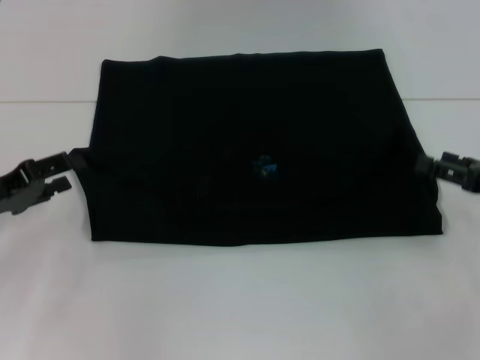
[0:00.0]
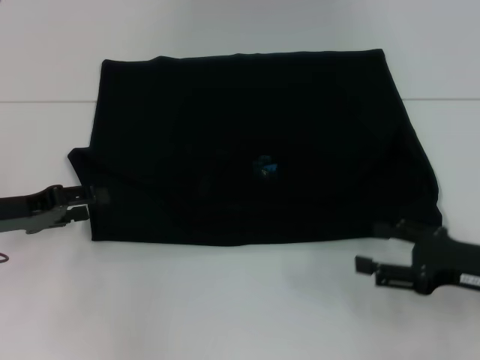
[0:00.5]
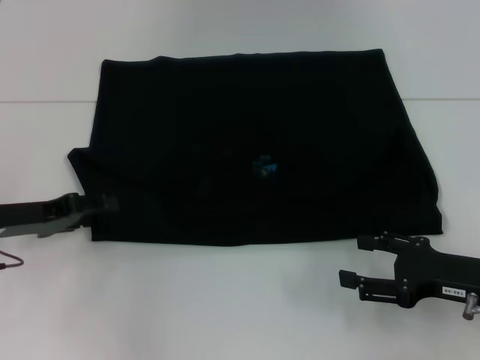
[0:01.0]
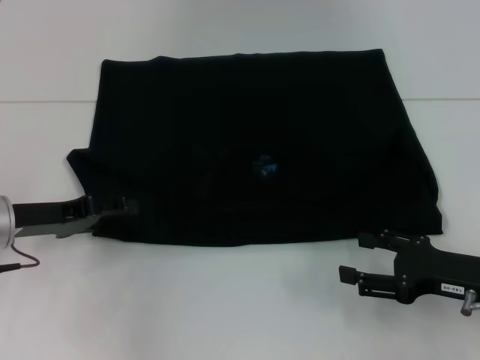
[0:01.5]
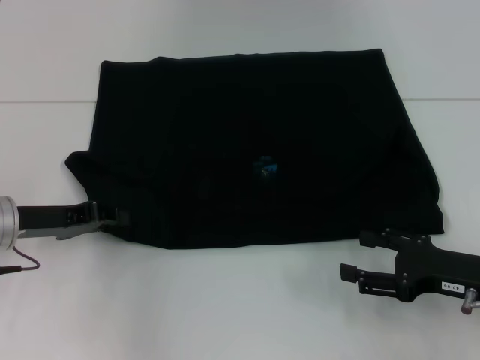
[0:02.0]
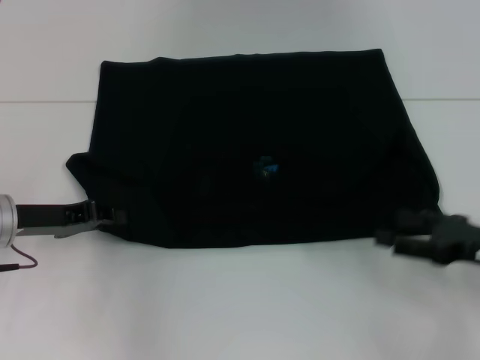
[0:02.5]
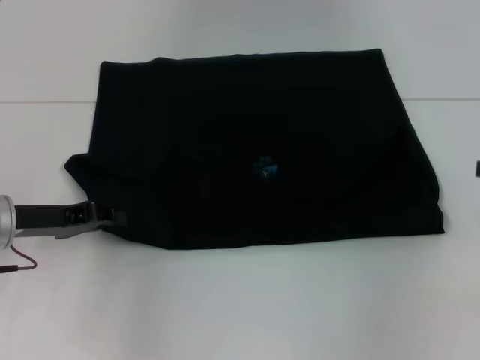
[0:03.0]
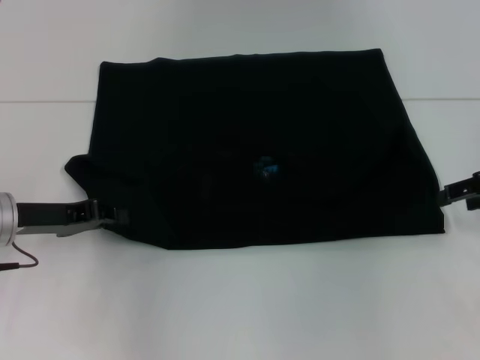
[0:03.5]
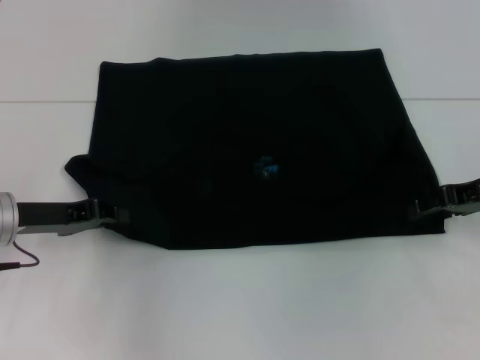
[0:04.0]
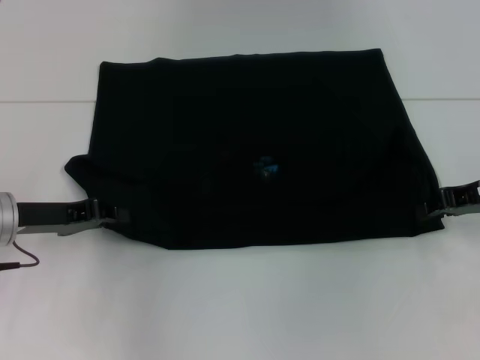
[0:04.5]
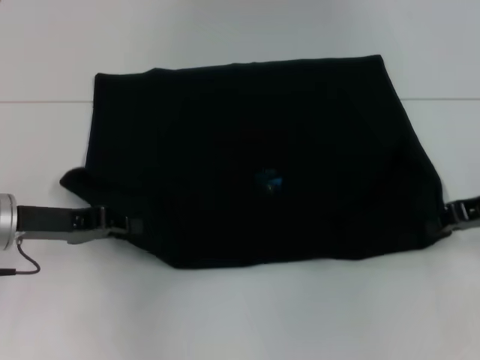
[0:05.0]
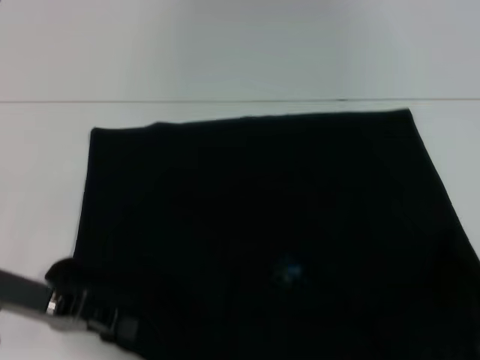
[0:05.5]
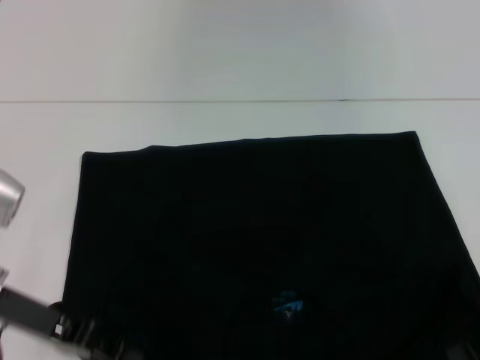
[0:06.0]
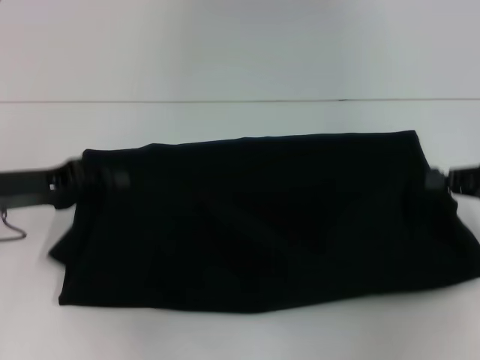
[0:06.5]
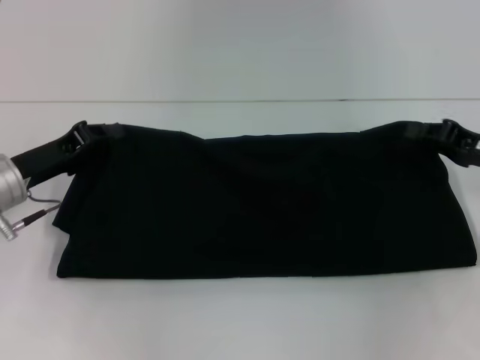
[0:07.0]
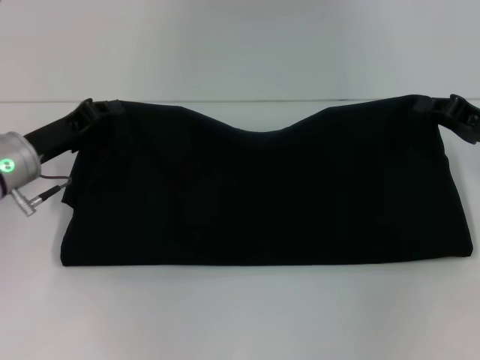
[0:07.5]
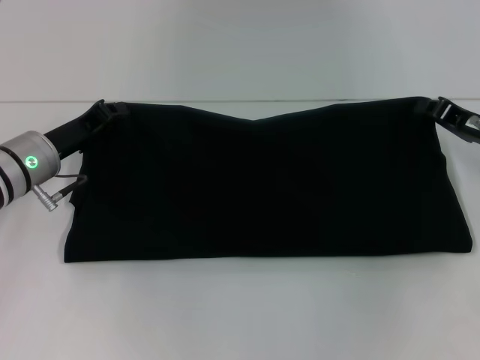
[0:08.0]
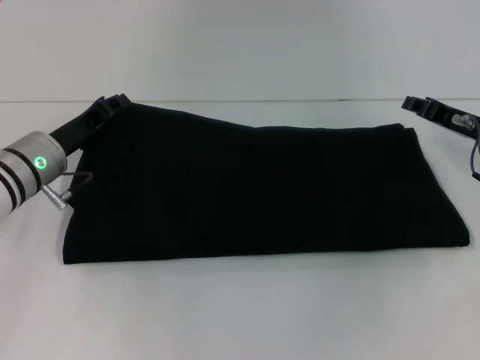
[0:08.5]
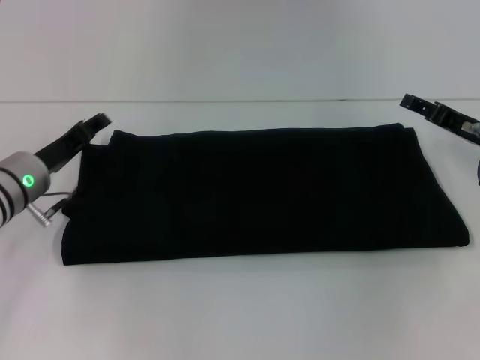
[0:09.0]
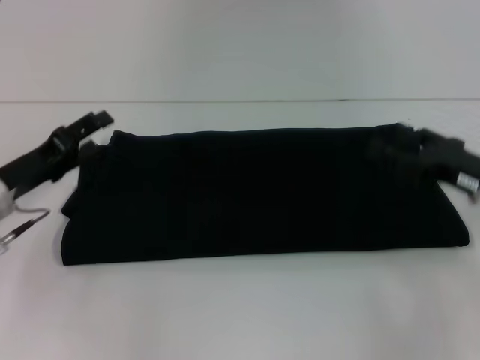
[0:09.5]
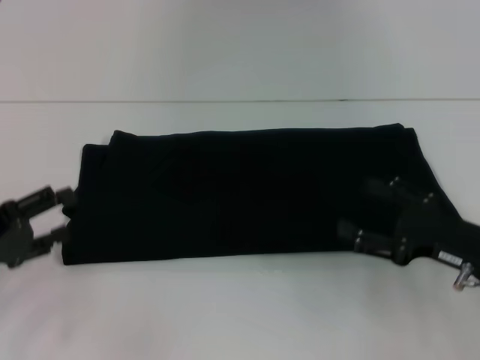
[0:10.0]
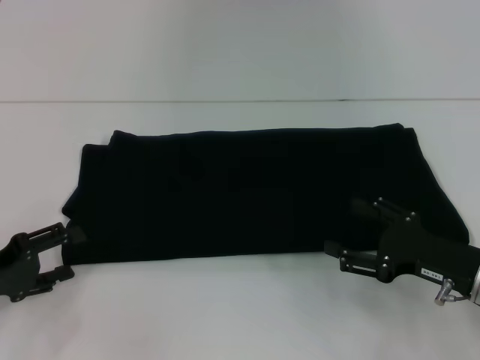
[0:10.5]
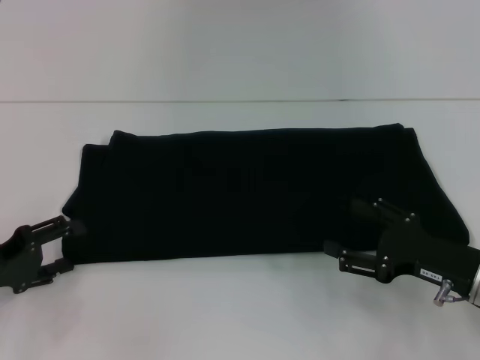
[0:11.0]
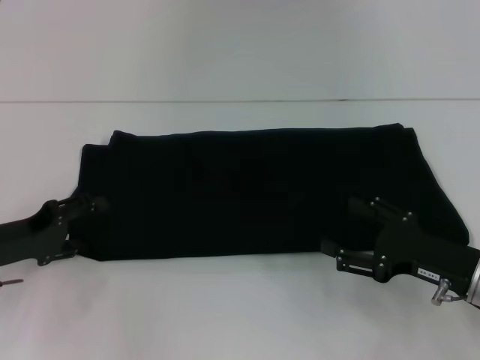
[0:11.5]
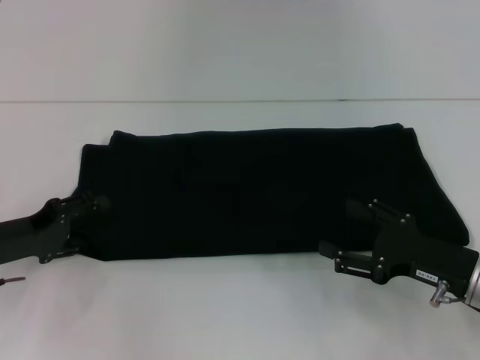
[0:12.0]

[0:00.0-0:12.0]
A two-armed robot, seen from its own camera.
Step, 0:00.0 to 0:05.5: Pull the clothes with your left hand.
Step, 0:00.0 to 0:05.5: Pull the clothes with your right hand.
Step, 0:06.0 to 0:08.5: Fold the clothes with your right hand.
0:00.0 to 0:02.0: The left gripper ends up some 5 cm from where it was, and closes up. Meanwhile the right gripper goes approximately 5 cm to the left.
0:02.0 to 0:04.0: The right gripper heads forward and upward, covering roughly 15 cm.
0:04.0 to 0:06.0: The right gripper moves backward, some 10 cm, and closes up; the left gripper goes about 5 cm backward.
0:06.0 to 0:08.0: Both grippers travel together forward, approximately 10 cm.
0:08.0 to 0:10.0: The right gripper moves backward, roughly 10 cm, and opens its fingers; the left gripper is displaced backward and to the left by approximately 15 cm, and opens.
0:10.0 to 0:12.0: The left gripper moves about 5 cm.

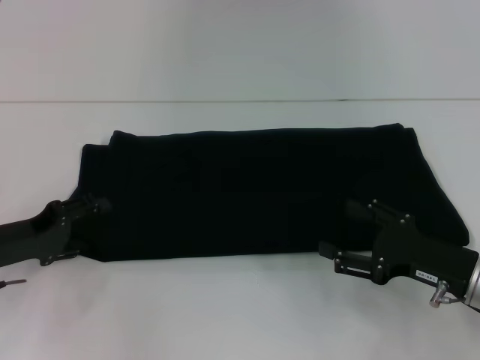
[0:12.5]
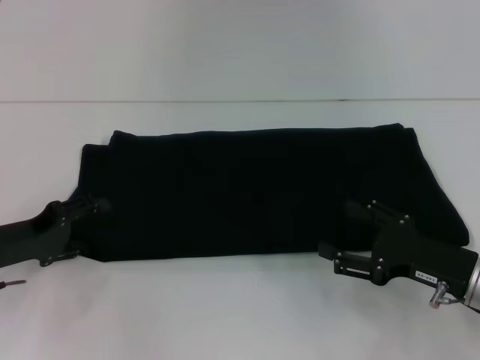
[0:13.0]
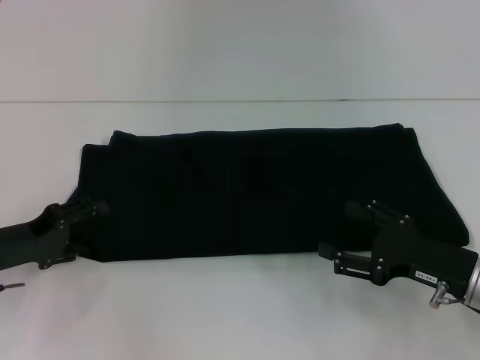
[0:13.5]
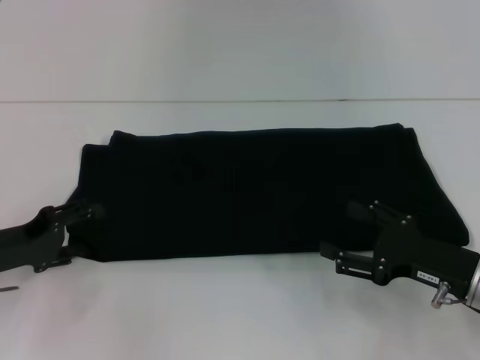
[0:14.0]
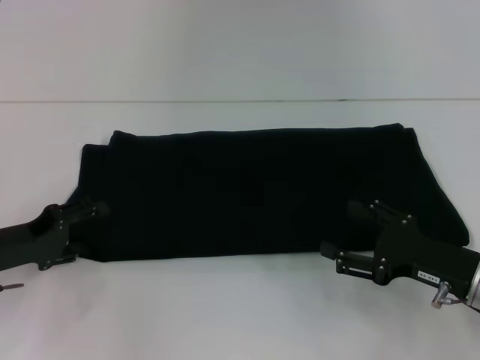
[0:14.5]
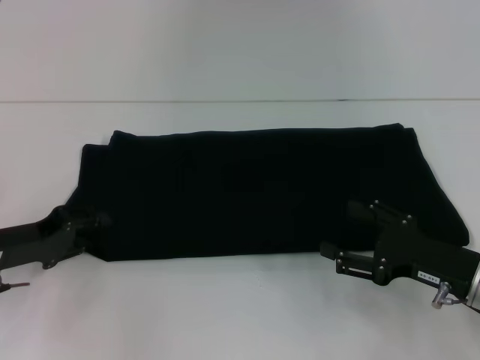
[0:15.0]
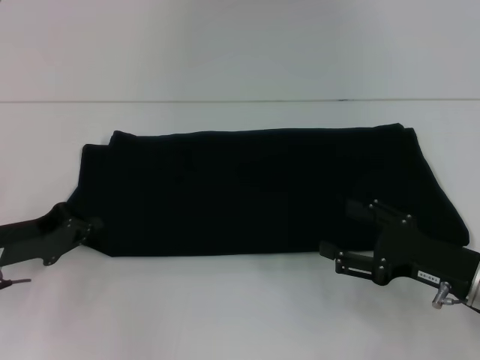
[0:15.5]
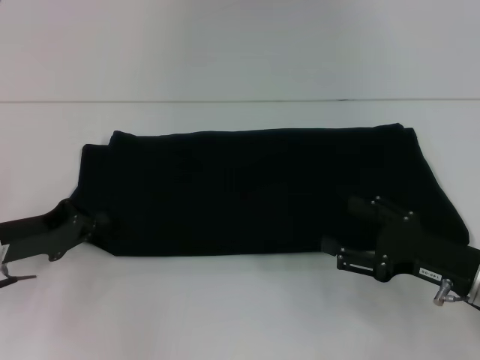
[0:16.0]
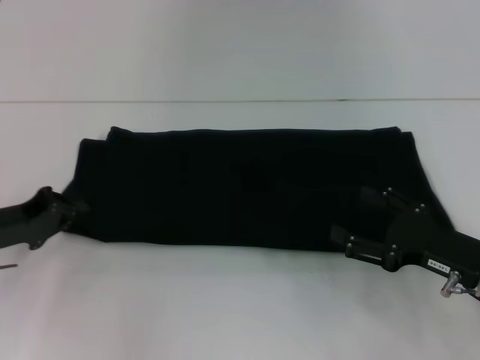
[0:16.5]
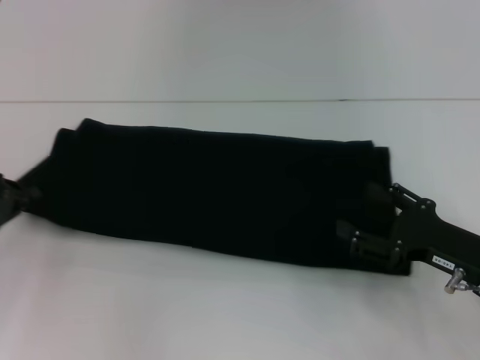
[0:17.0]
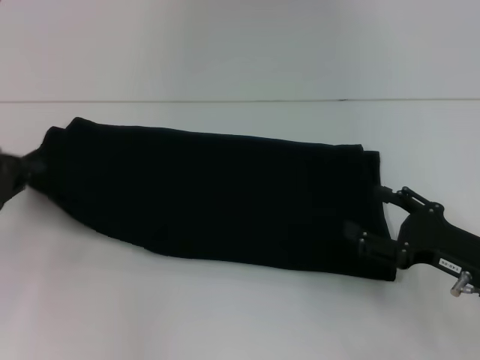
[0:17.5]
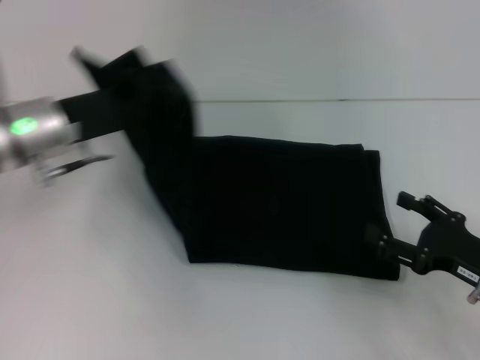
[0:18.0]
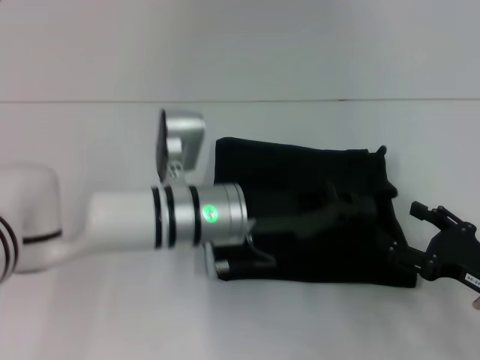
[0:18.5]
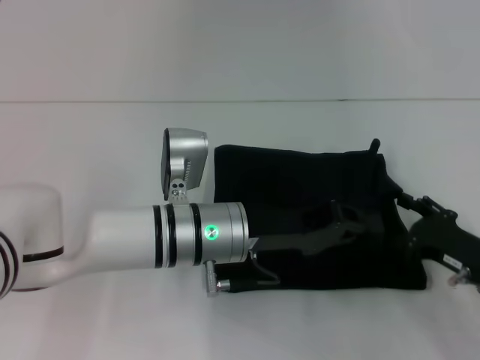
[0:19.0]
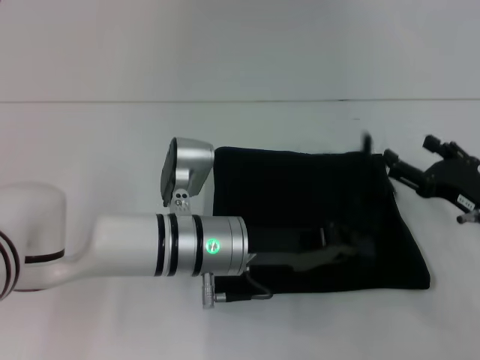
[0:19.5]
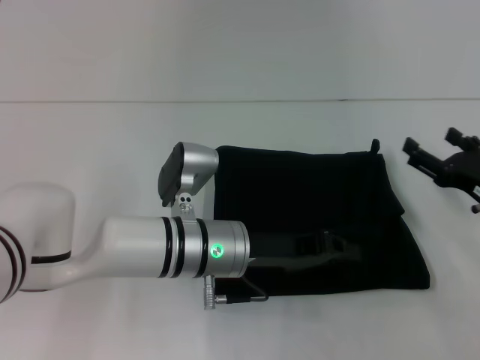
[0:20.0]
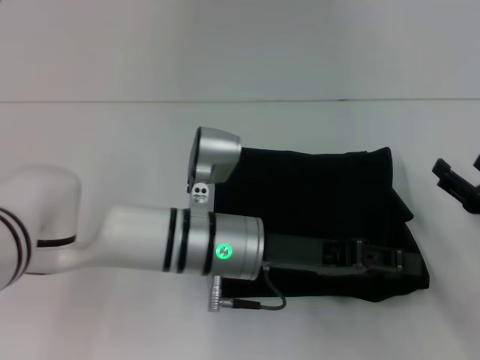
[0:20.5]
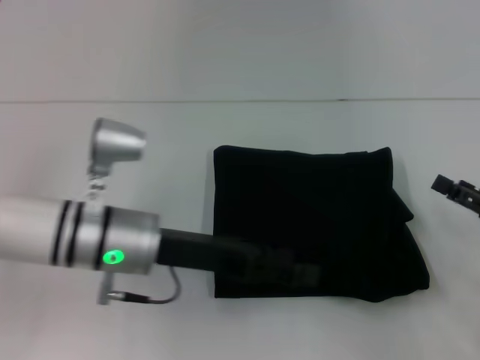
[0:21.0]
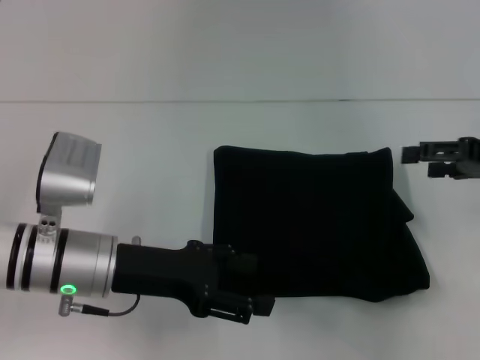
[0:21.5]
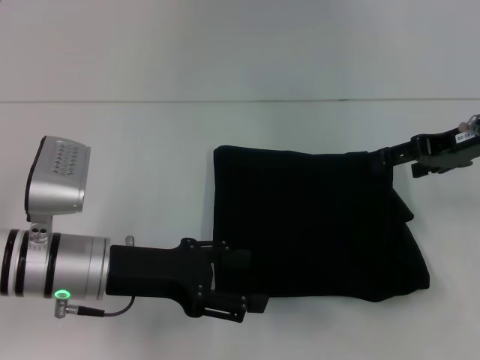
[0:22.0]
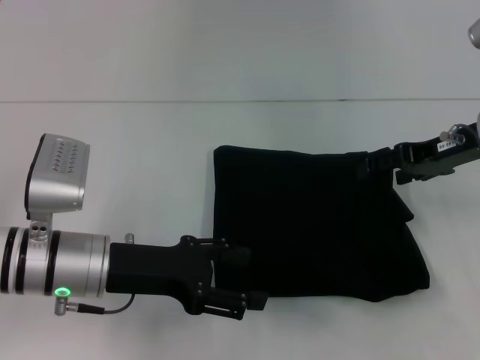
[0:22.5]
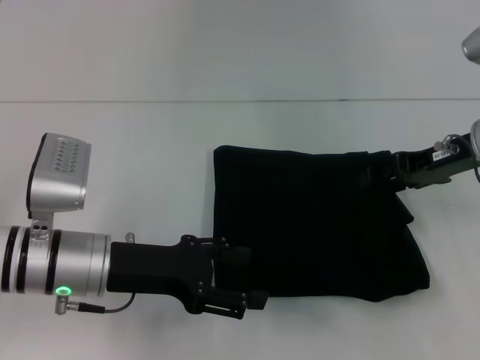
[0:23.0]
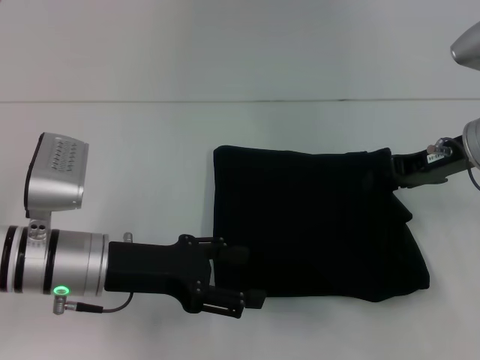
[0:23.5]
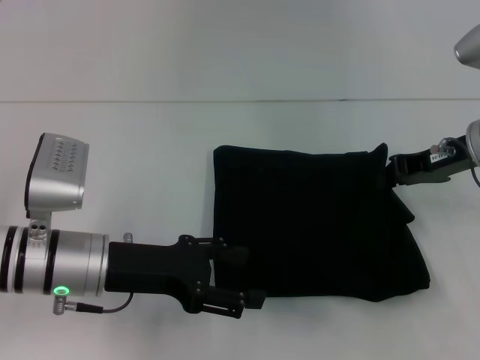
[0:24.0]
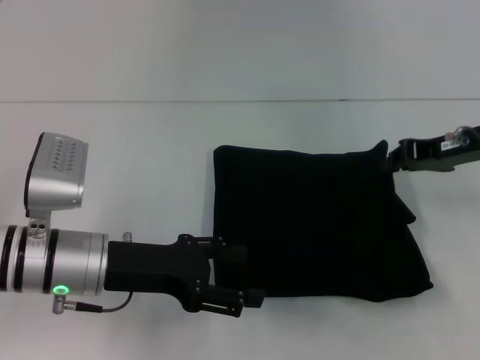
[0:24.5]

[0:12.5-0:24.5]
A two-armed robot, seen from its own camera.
Step, 0:12.5 to 0:20.5: Fold the clothes with your left hand.
0:12.5 to 0:14.5: Neither gripper changes place.
0:14.5 to 0:16.5: The left gripper closes.
0:16.5 to 0:18.5: The left gripper goes about 25 cm to the right.
0:20.5 to 0:22.5: The left gripper moves to the left, approximately 15 cm, and opens up, while the right gripper moves upward, forward and to the left, roughly 20 cm.
0:22.5 to 0:24.5: The right gripper closes up.

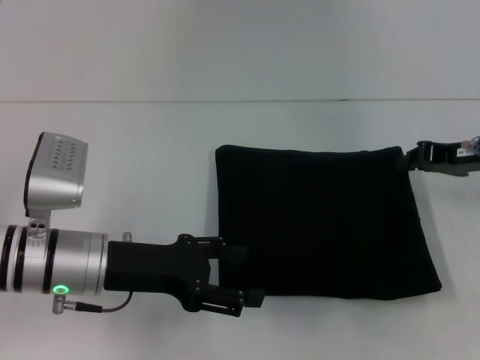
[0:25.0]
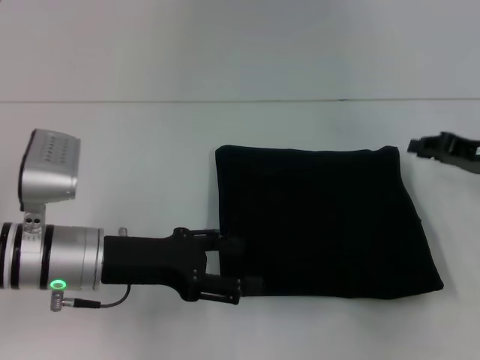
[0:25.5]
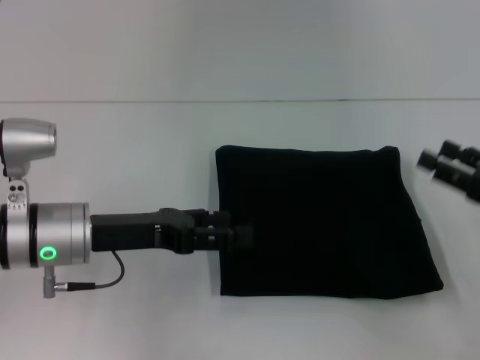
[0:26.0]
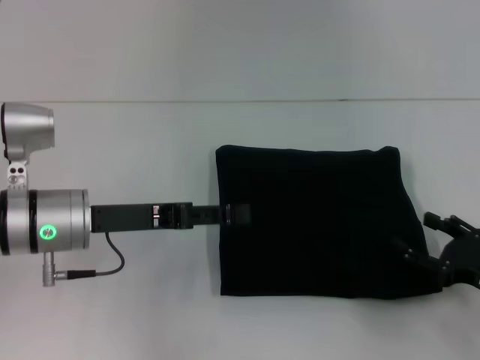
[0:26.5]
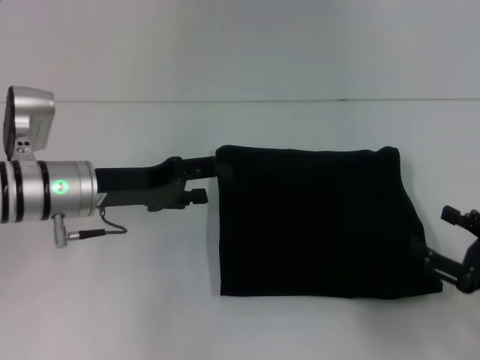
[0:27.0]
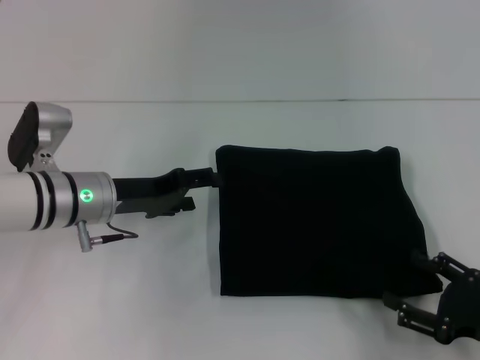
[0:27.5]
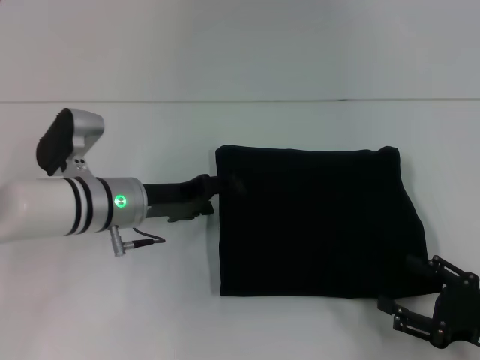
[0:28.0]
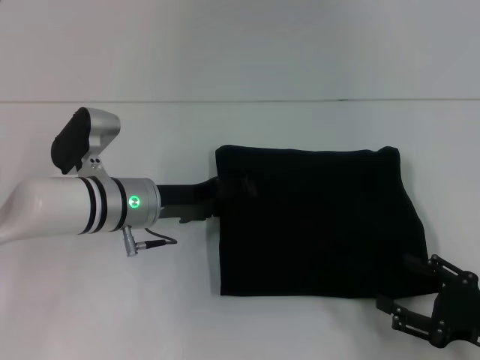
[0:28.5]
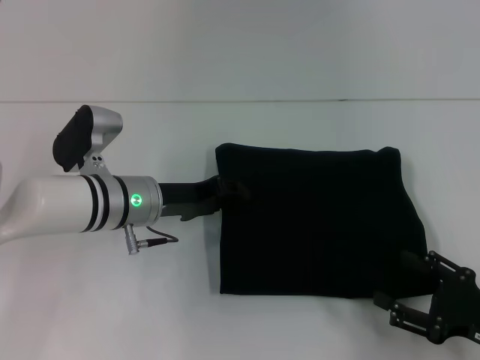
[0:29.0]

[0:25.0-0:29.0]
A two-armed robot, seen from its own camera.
0:25.0 to 0:27.0: The right gripper moves backward and downward, approximately 20 cm, and opens up. The left gripper shifts about 5 cm forward.
0:27.0 to 0:29.0: The left gripper moves to the right, some 5 cm.
